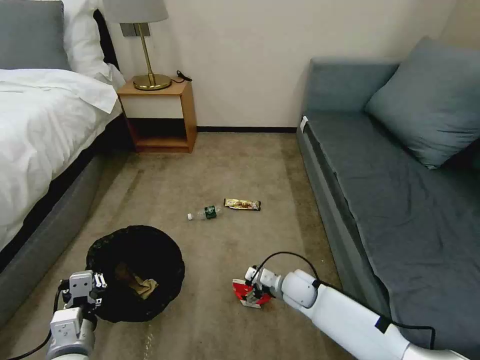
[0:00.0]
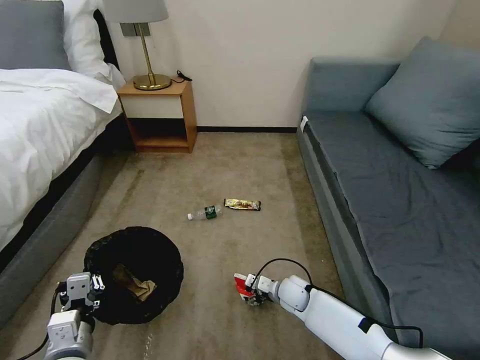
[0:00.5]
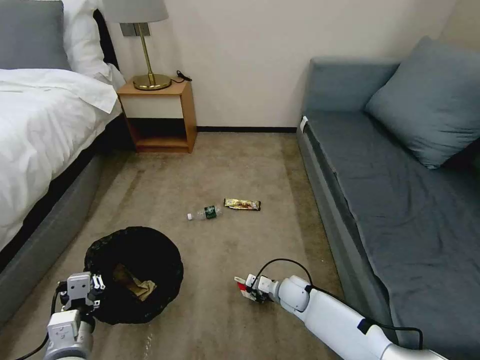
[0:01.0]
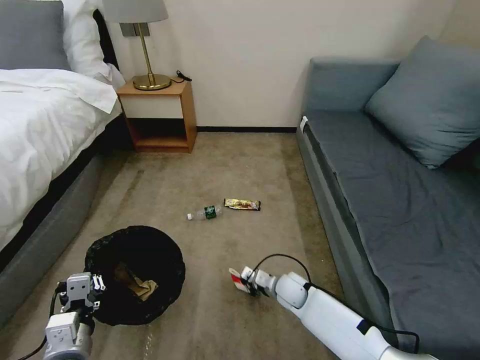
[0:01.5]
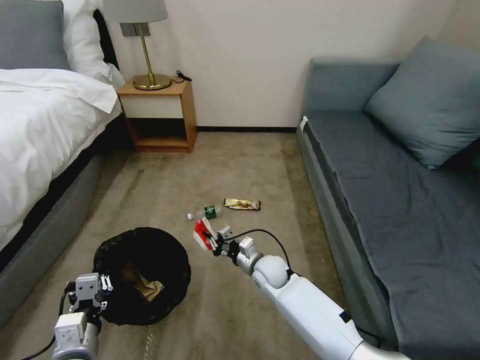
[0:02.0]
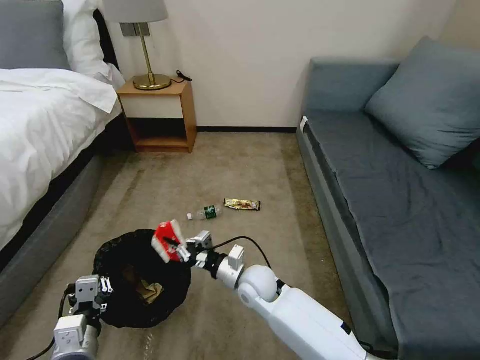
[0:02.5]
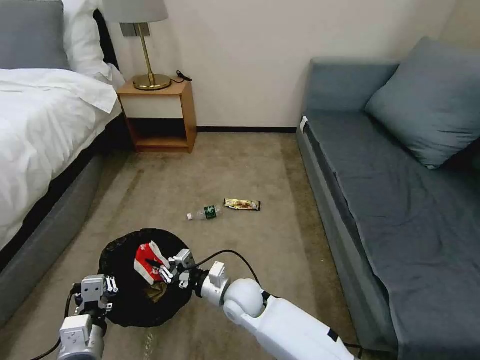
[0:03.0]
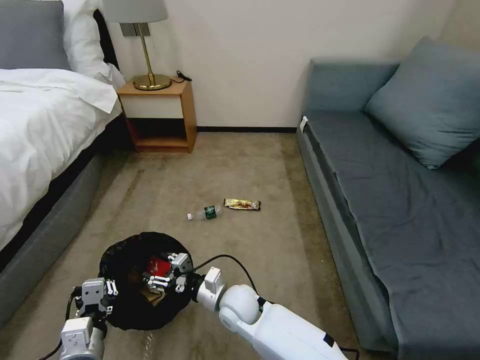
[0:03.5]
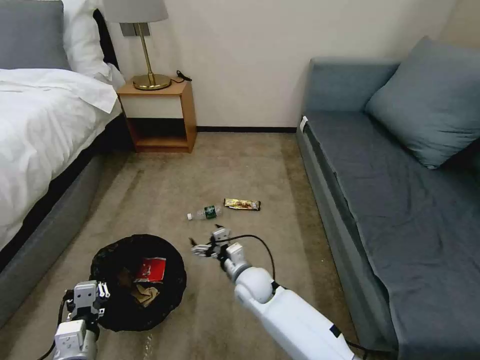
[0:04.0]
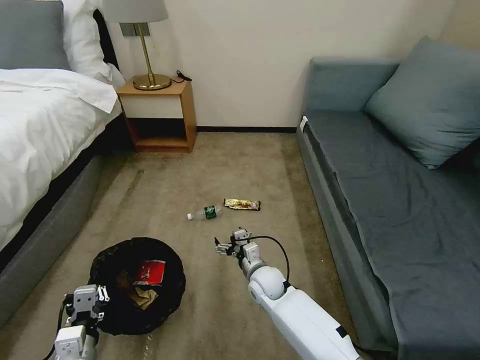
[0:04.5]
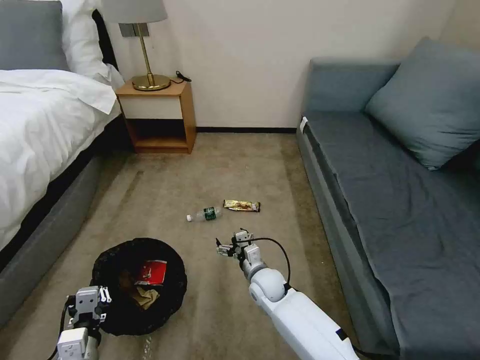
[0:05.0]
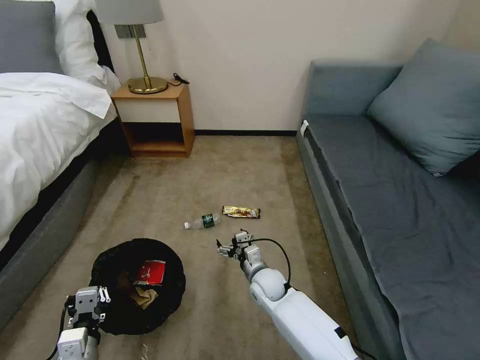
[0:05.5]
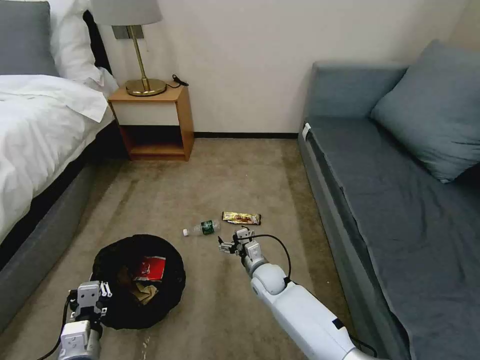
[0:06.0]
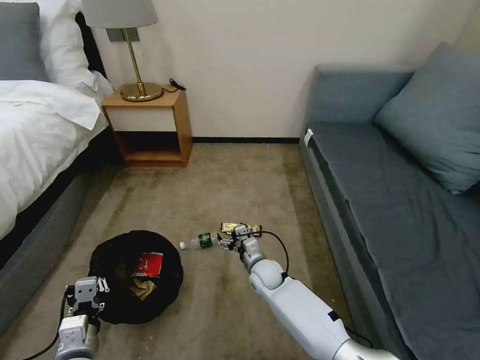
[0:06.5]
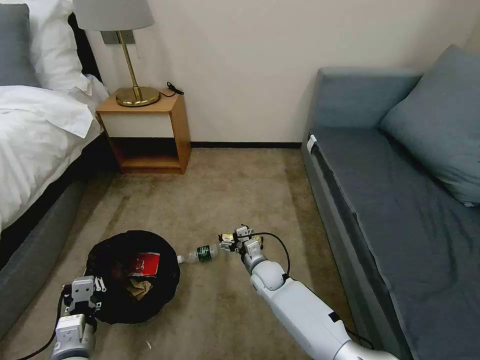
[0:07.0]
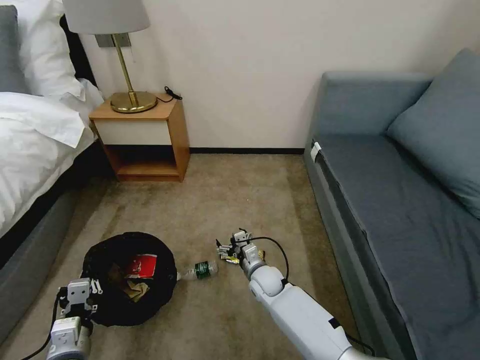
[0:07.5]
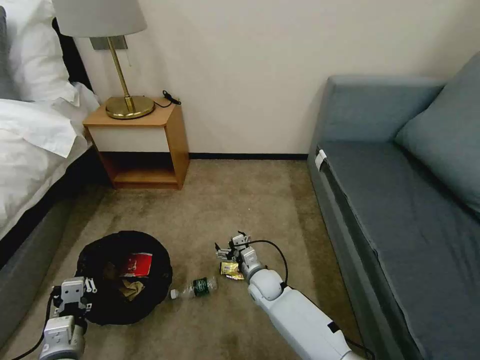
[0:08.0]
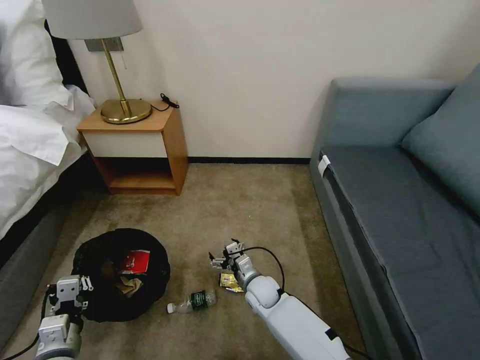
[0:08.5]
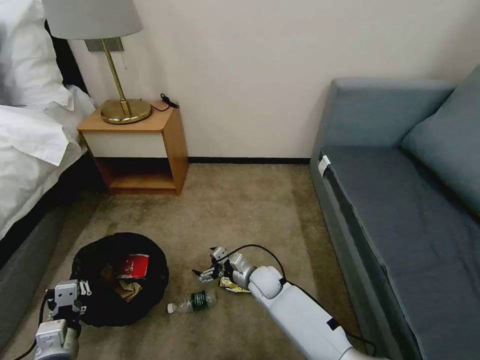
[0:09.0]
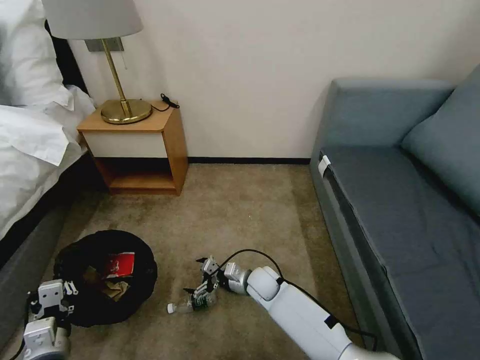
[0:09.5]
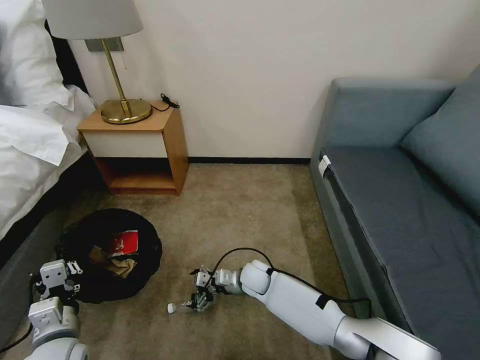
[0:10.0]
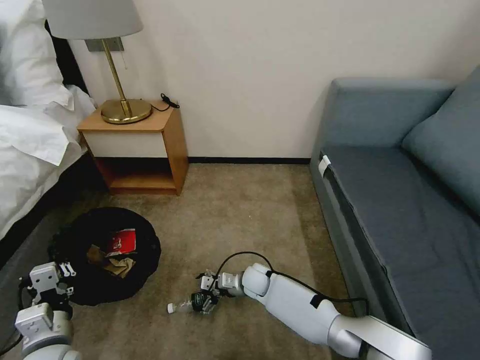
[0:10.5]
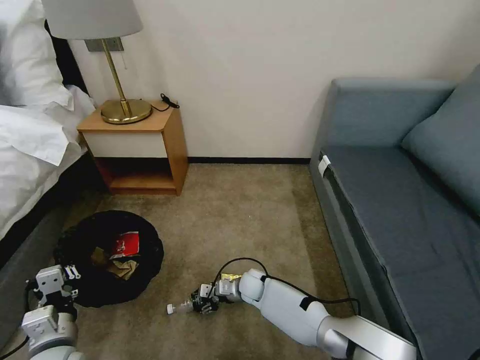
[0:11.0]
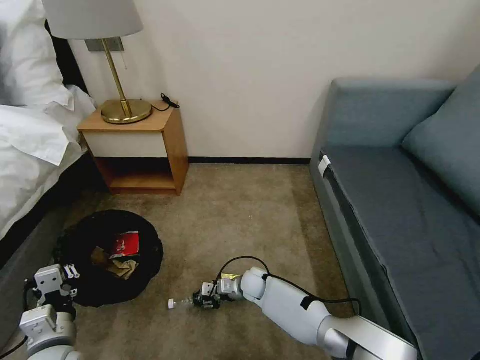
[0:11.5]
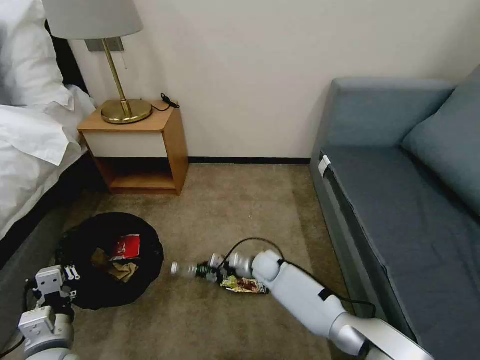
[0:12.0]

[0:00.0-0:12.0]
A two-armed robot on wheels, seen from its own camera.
Task of the whole recording: Pick up the trash bin, then pick up the garbage on the floor and place it into the trash bin.
0:00.0 to 0:02.0: The right gripper heads to the left, covering about 5 cm, and closes.
0:02.0 to 0:04.0: The right gripper goes approximately 5 cm to the left, and opens up.
0:04.0 to 0:06.0: The right gripper moves roughly 10 cm.
0:10.0 to 0:12.0: The right gripper changes place by some 5 cm, and closes.

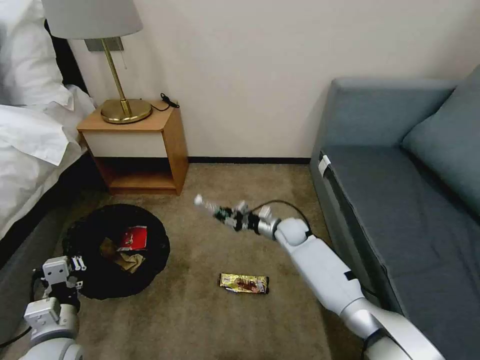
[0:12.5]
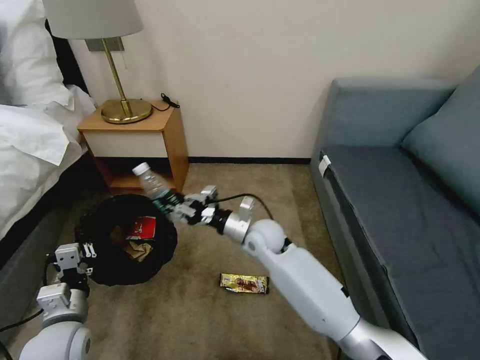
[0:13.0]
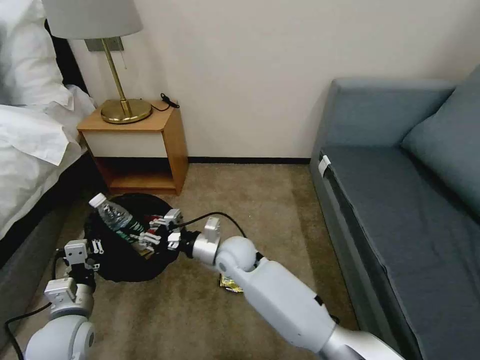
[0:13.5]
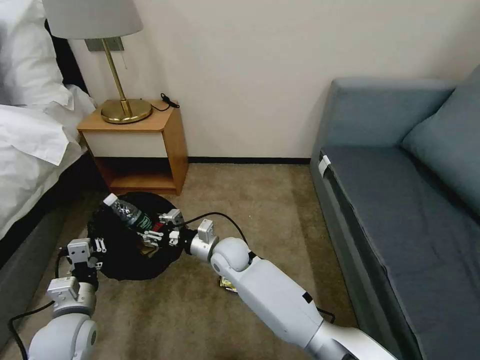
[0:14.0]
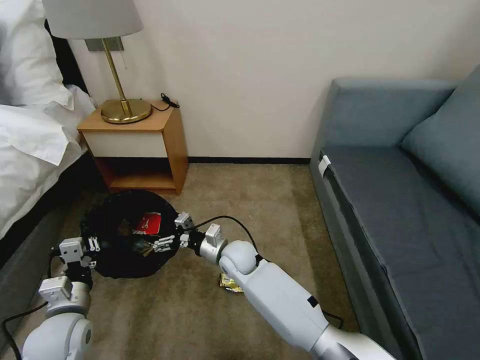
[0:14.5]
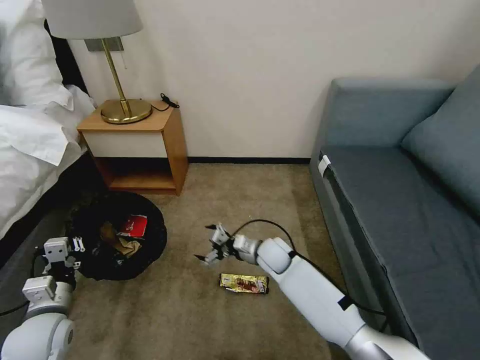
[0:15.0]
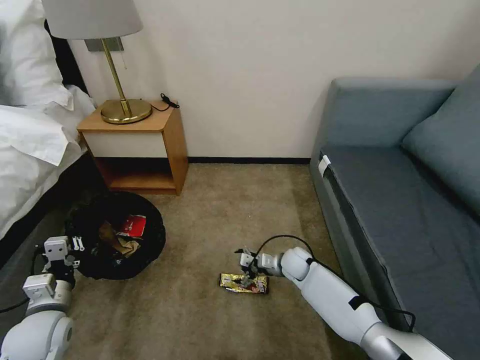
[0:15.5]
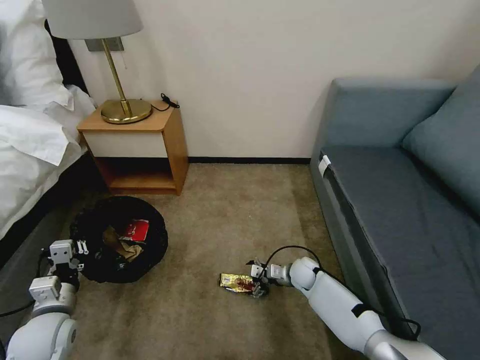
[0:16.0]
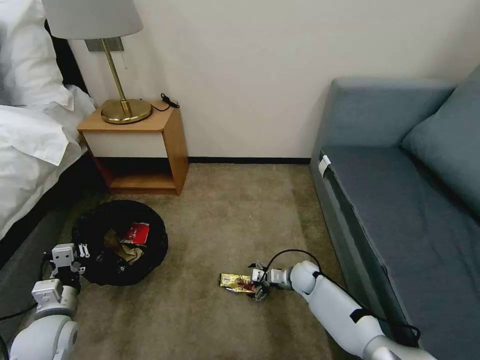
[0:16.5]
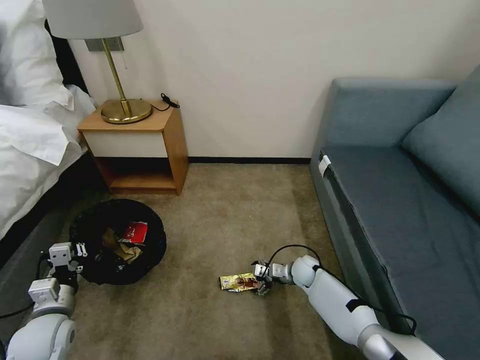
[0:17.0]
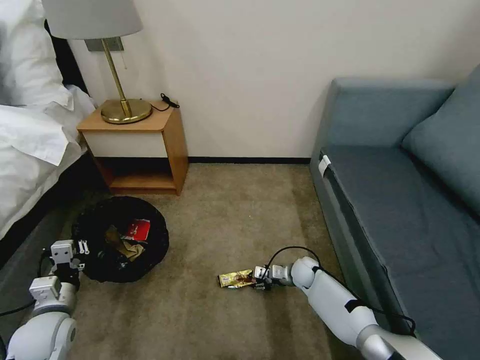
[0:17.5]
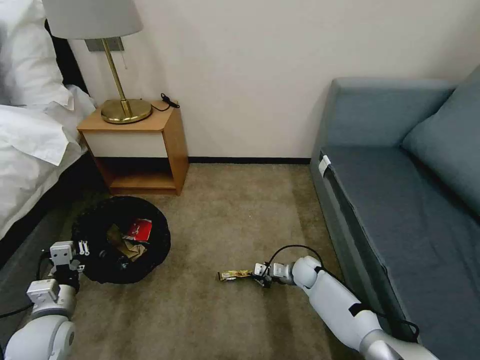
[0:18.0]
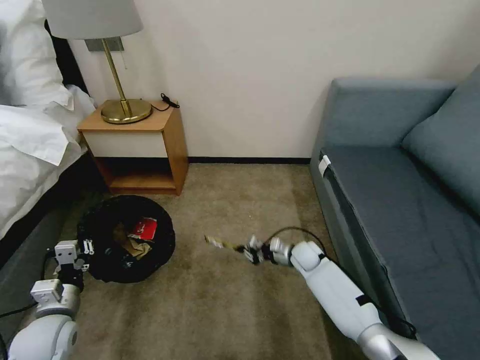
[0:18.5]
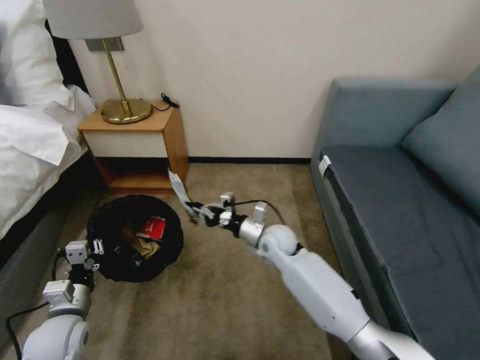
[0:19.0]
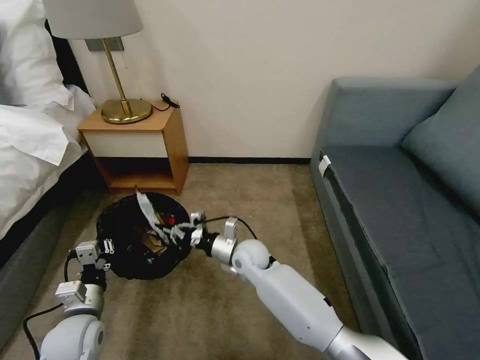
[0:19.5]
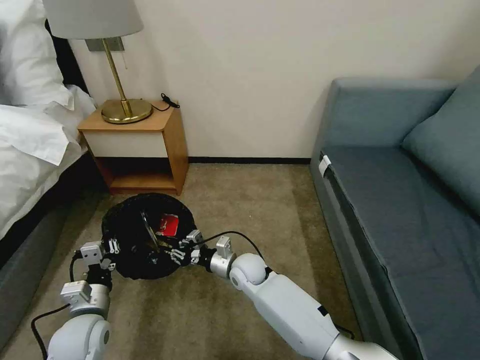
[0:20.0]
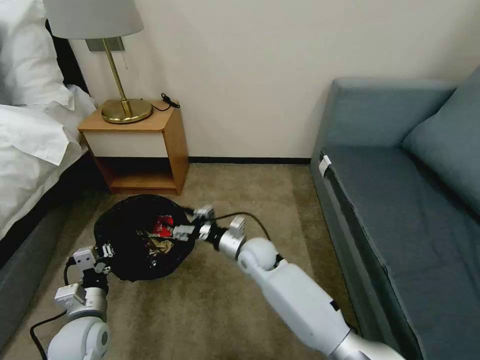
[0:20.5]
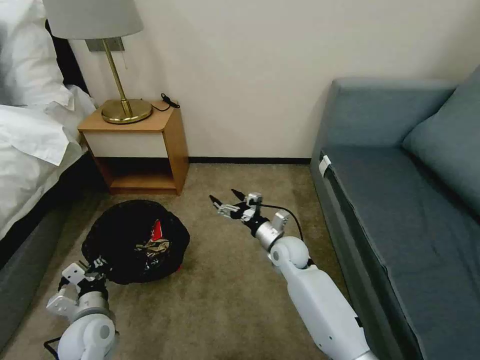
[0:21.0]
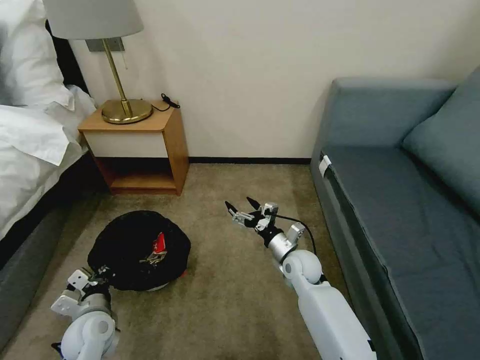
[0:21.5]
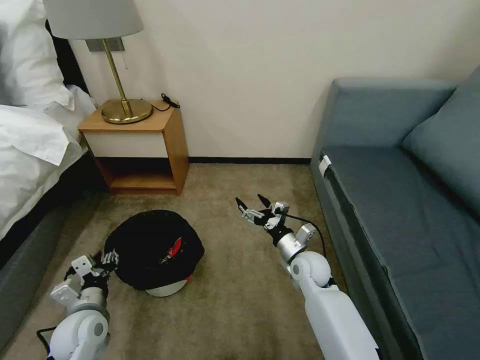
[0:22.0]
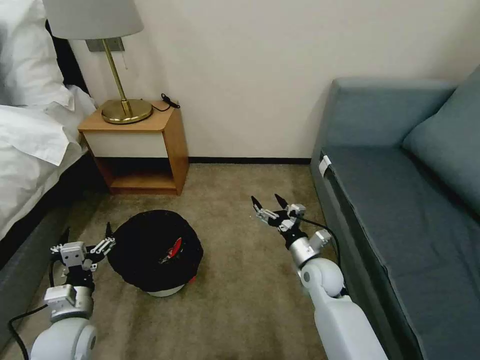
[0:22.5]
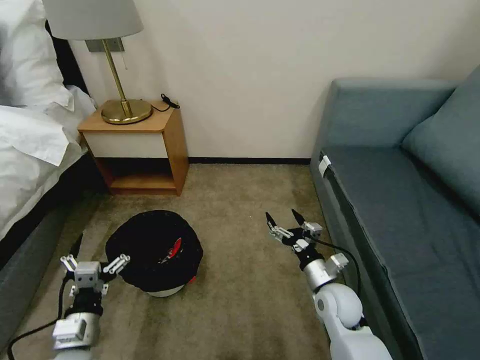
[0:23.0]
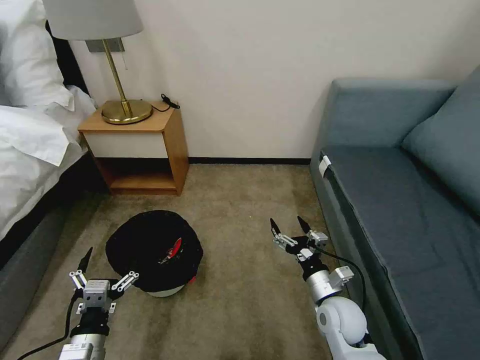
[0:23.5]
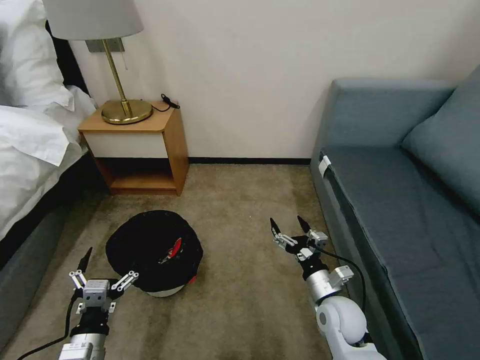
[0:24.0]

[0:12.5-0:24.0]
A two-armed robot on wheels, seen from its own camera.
Task of the whole recording: Pick up the trash bin, then pick up the garbage on the floor and place it into the trash bin.
0:12.5 to 0:14.5: The right gripper heads to the left and backward, covering approximately 20 cm, and opens up.
0:14.5 to 0:16.5: The left gripper ends up roughly 5 cm from where it was. The right gripper heads to the right and downward, covering approximately 25 cm.
0:16.5 to 0:18.5: The right gripper moves approximately 5 cm, and closes up.
0:18.5 to 0:20.0: The right gripper is displaced to the left by approximately 20 cm. Meanwhile the left gripper moves to the right, about 5 cm.
0:20.0 to 0:22.0: The right gripper is displaced to the right by about 15 cm, and opens its fingers; the left gripper opens up.
0:22.0 to 0:24.0: Both grippers move backward, about 10 cm. The left gripper opens up.

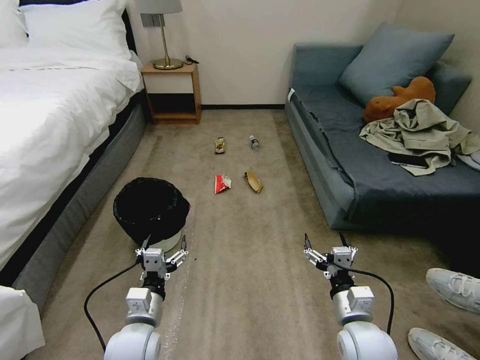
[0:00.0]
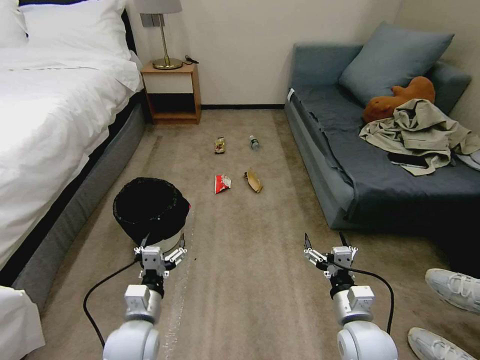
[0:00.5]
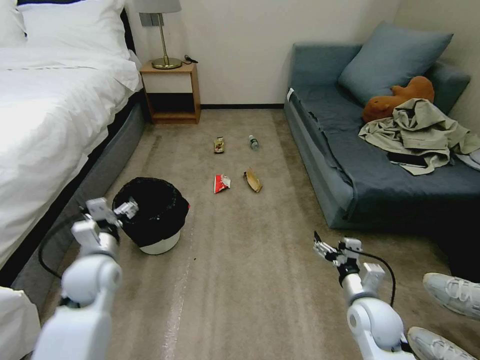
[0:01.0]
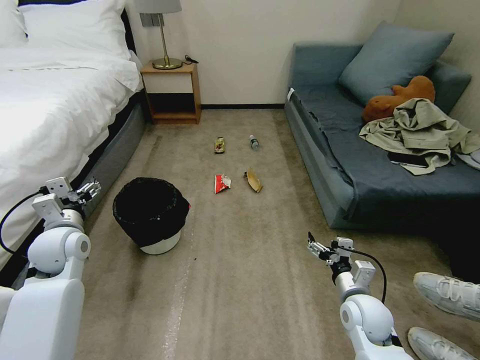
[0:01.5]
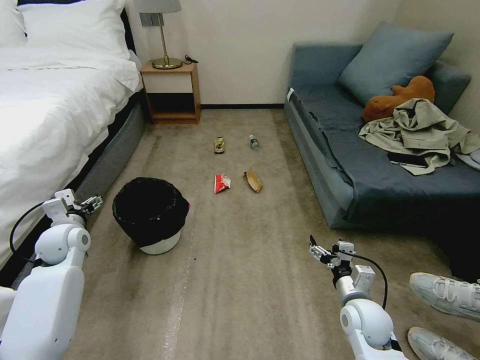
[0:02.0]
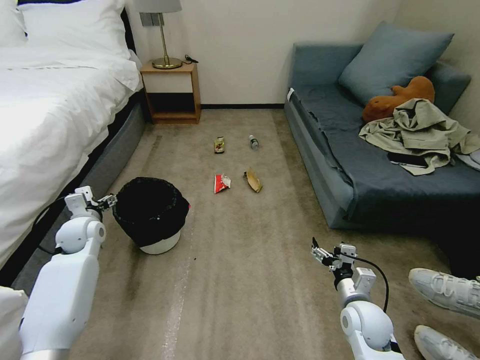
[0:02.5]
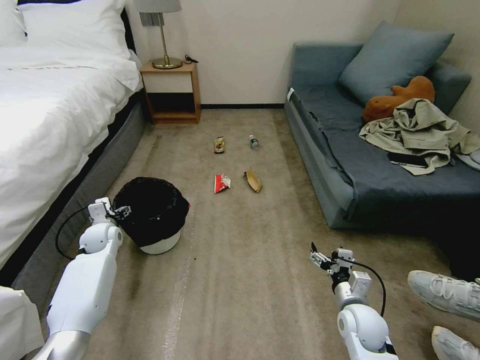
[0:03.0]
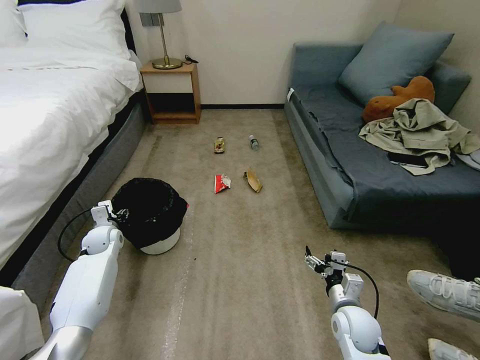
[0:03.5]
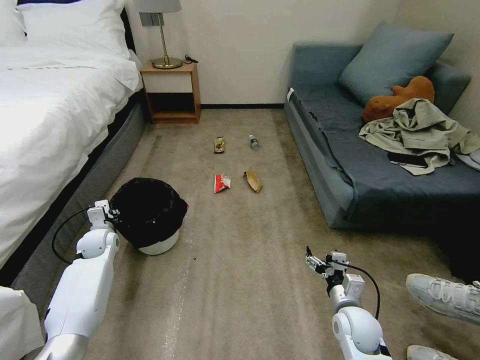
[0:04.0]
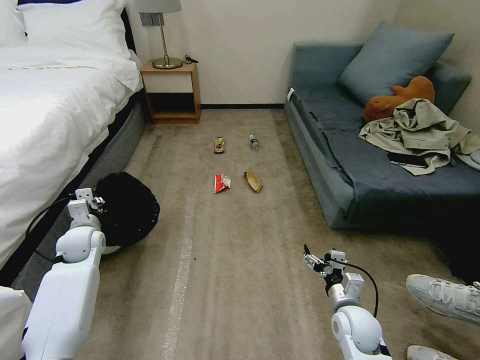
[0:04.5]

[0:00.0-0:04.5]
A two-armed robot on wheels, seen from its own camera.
Task of the whole recording: Pick up the trash bin, then pick up the garbage on the floor and place it into the trash bin.
0:02.0 to 0:04.5: The left gripper closes up.
